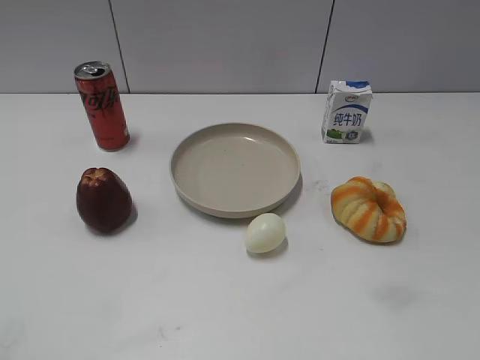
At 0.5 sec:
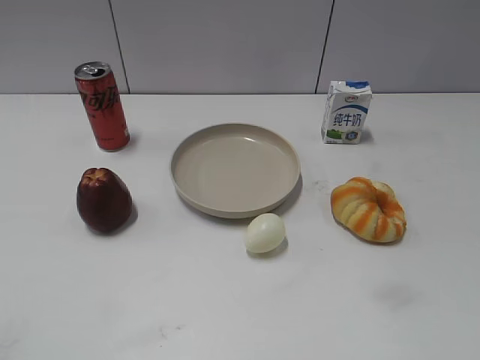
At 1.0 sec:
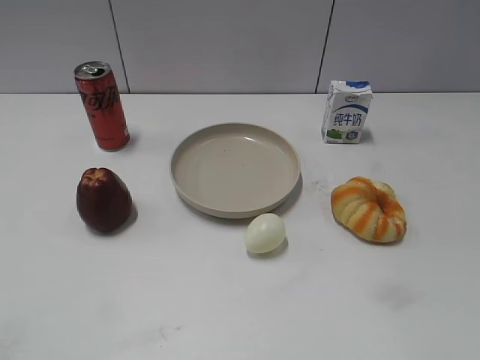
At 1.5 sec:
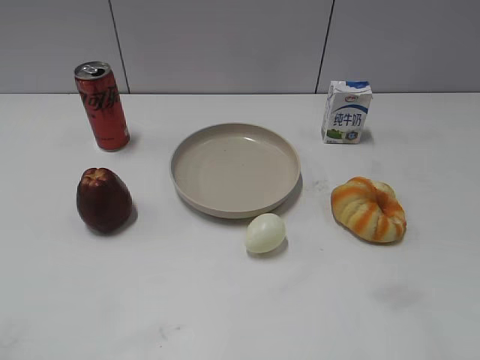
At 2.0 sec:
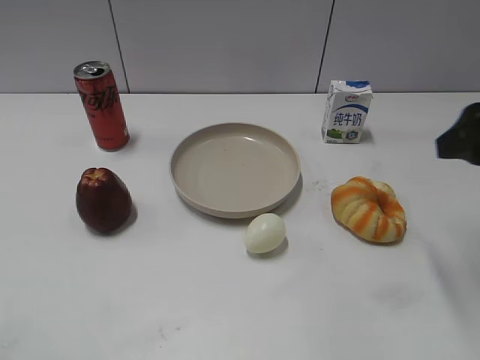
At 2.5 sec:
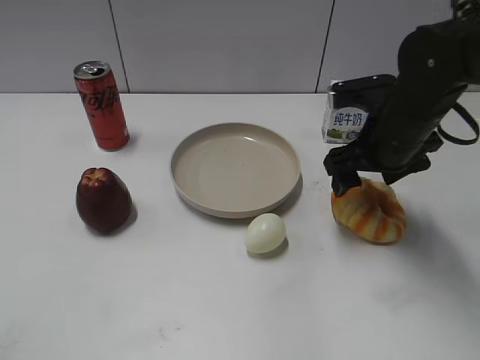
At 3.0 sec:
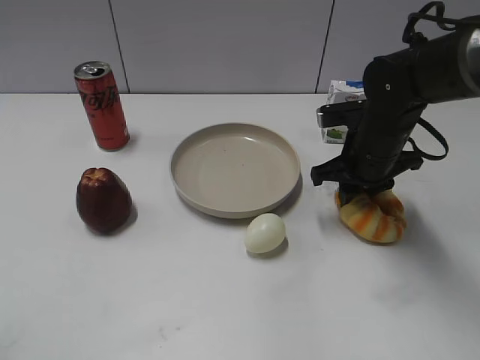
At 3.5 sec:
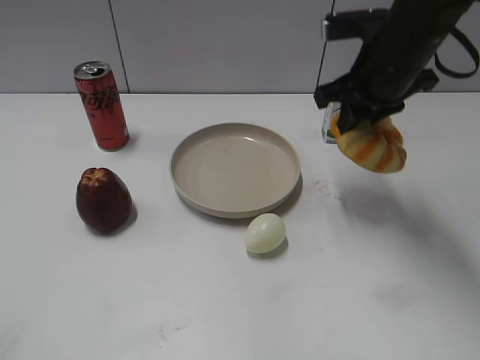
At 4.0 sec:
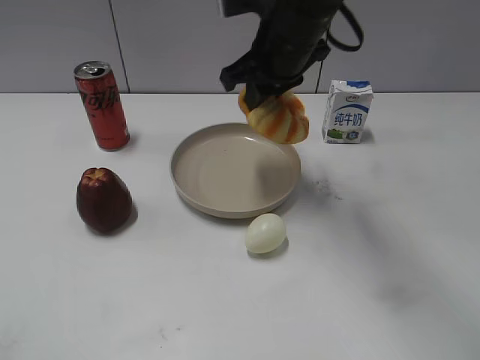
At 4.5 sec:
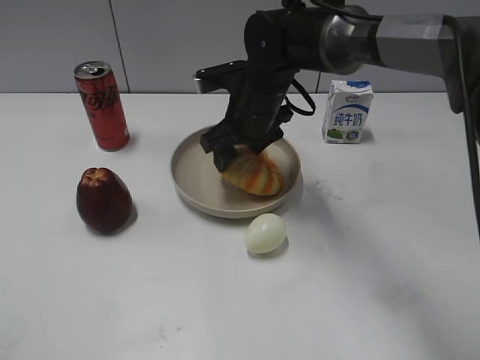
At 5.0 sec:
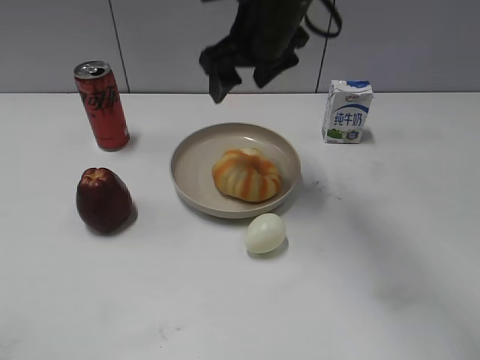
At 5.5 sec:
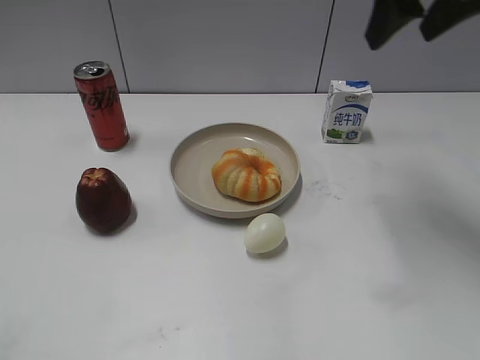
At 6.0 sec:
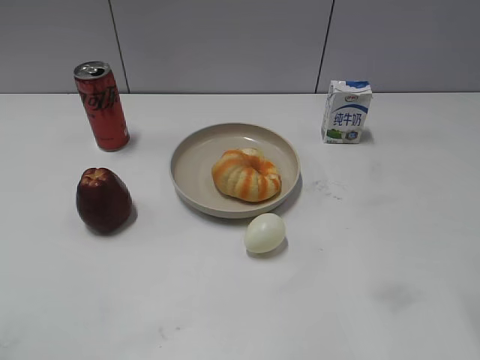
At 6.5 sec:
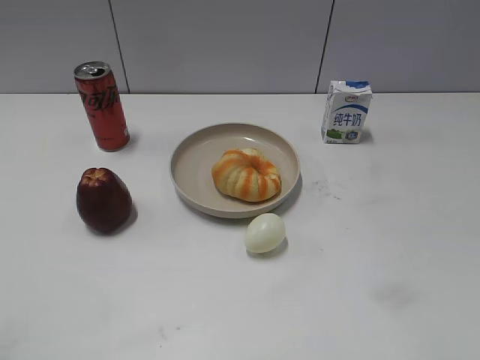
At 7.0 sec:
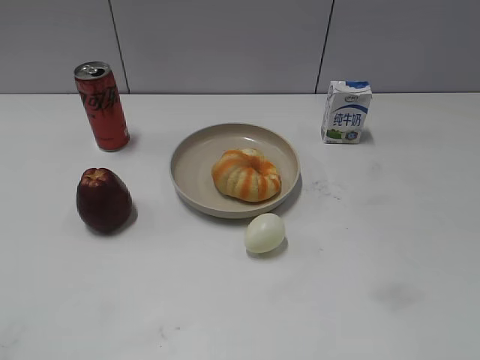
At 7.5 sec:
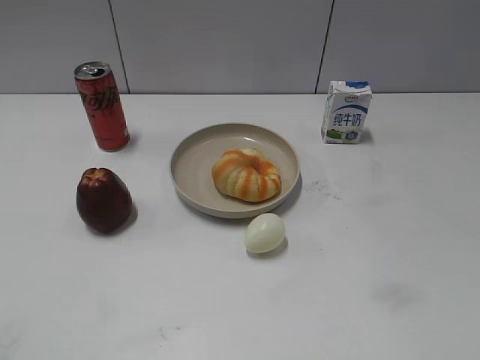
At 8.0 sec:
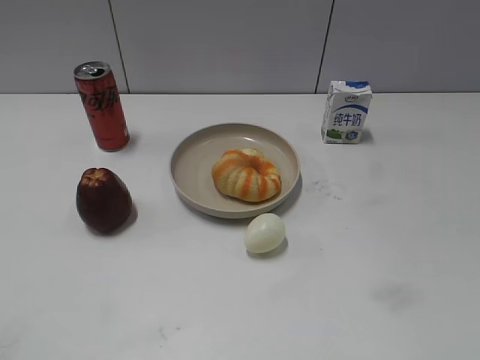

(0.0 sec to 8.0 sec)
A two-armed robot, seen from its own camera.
Step, 1.5 sec - 3.0 sec: Grasp the round bread with right gripper.
Step, 3.5 sec - 4.5 sec: Place the round bread on the plate with right gripper.
2.0 sec - 4.0 sec: The right gripper travels to the left and forward by some 25 cm, and closes its fingers.
4.0 sec - 6.0 sec: The right gripper is displaced to the right, backward and upward by about 25 cm, and opens.

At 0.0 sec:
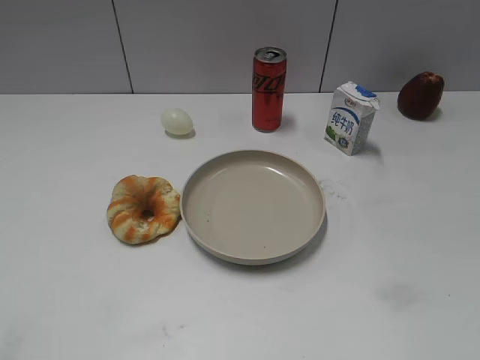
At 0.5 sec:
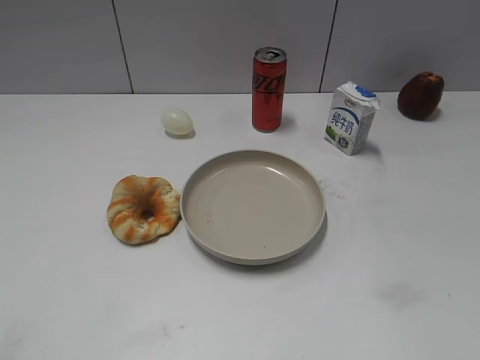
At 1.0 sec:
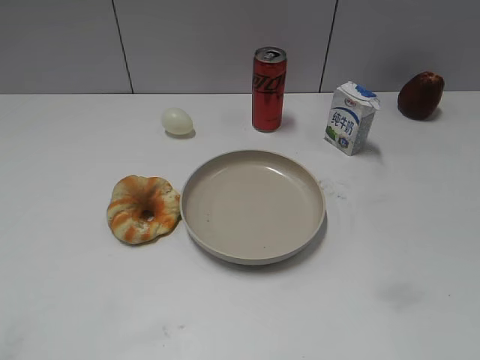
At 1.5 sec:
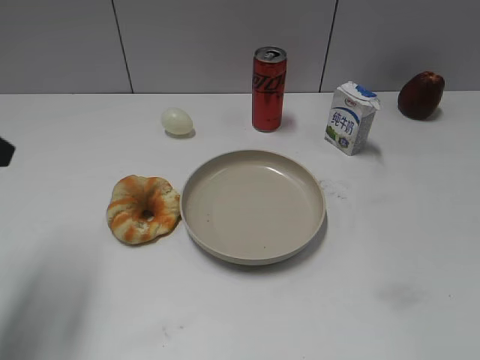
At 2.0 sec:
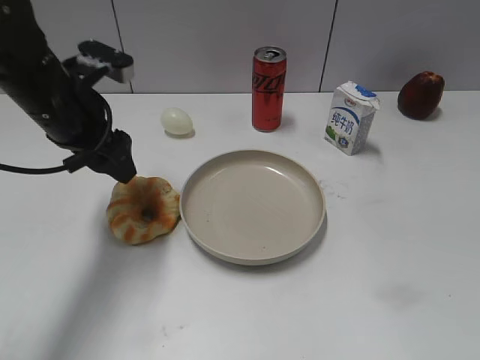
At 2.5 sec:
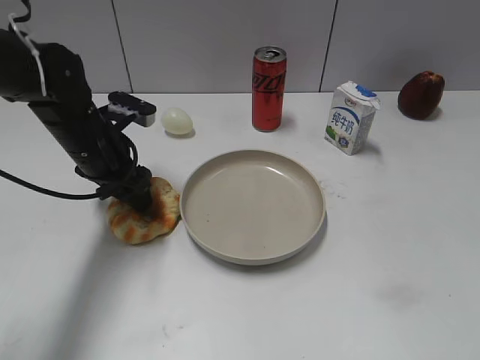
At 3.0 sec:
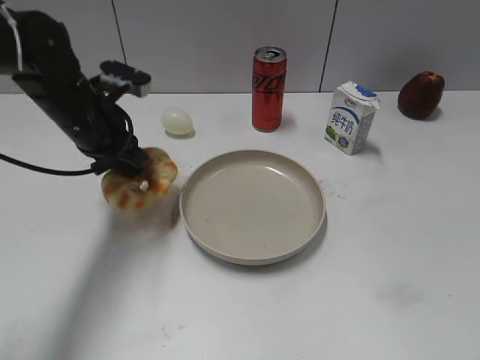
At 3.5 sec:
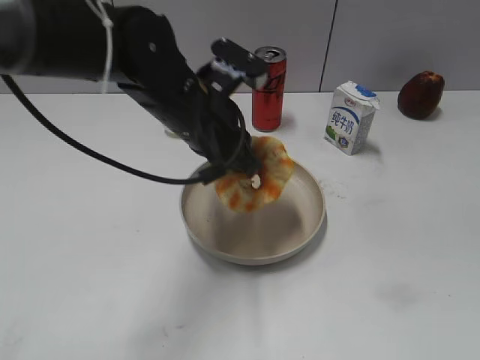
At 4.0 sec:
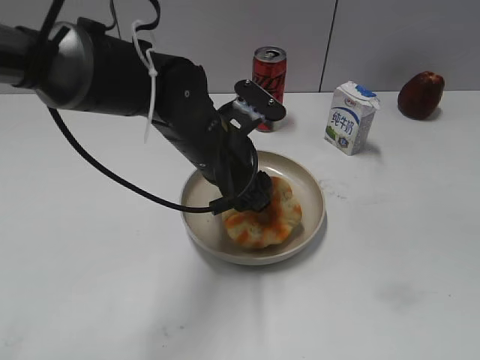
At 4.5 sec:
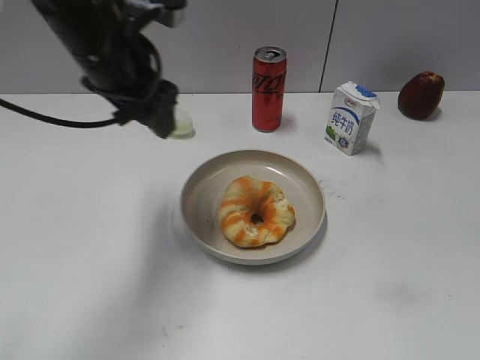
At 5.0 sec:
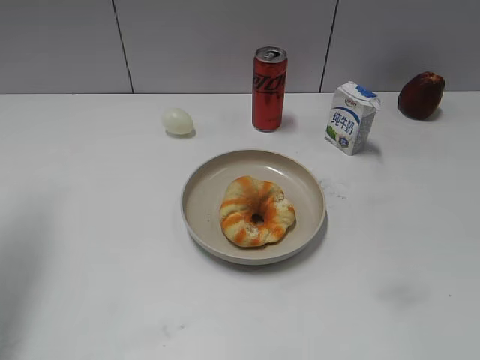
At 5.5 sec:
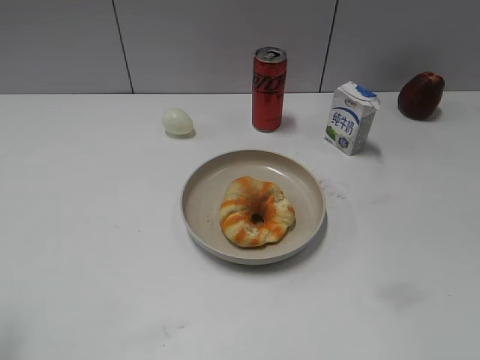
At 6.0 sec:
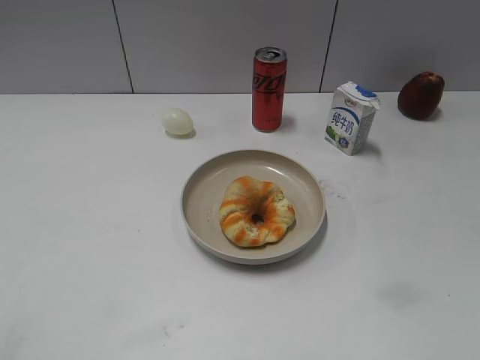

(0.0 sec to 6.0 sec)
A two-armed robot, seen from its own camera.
Step, 1.0 sec - 2.5 sec: Grasp the round bread with left gripper.
Step, 3.0 sec - 4.0 sec: Place the round bread on the plate with left gripper.
2.0 sec - 4.0 sec: The left gripper is displaced to the right by approximately 15 cm, and closes and opens again.
4.0 sec - 6.0 sec: The left gripper goes about 40 cm to the left, backward and upward.

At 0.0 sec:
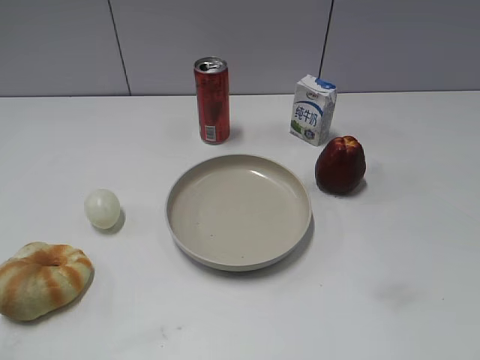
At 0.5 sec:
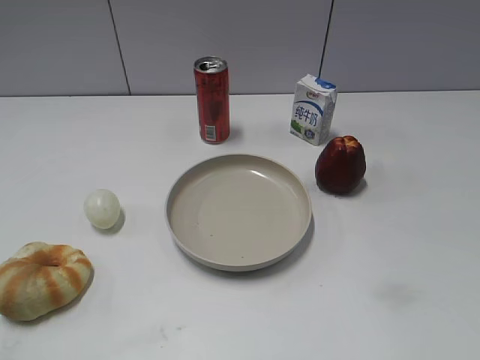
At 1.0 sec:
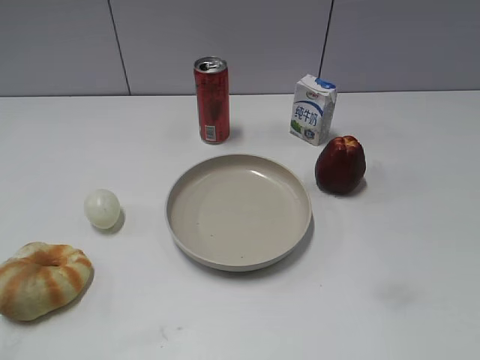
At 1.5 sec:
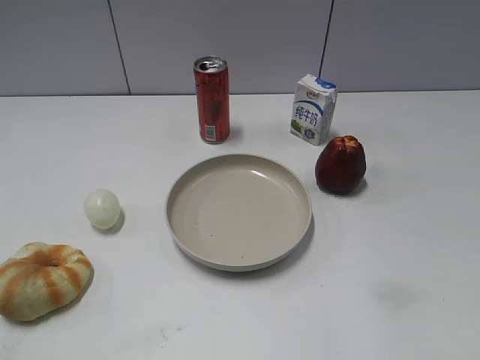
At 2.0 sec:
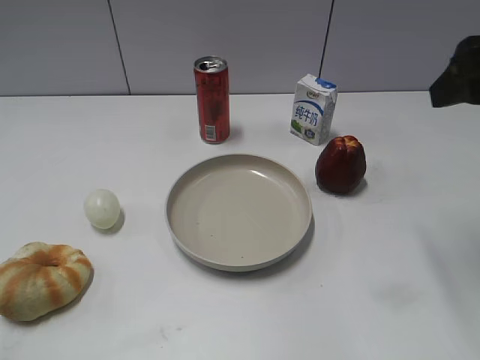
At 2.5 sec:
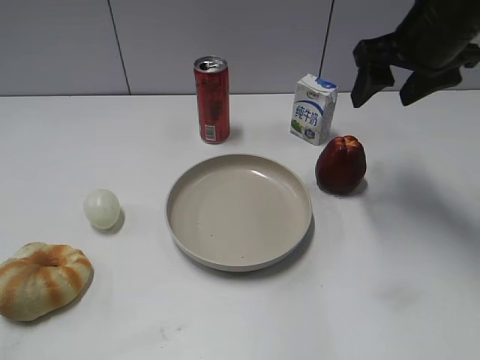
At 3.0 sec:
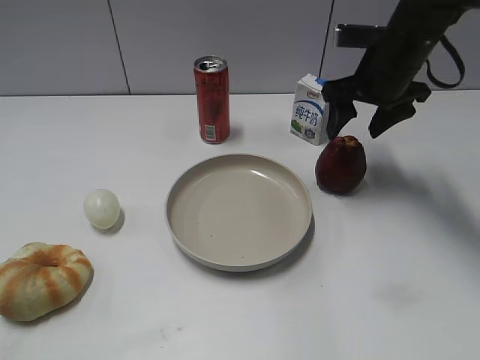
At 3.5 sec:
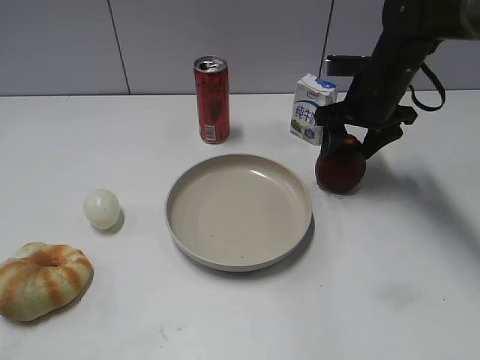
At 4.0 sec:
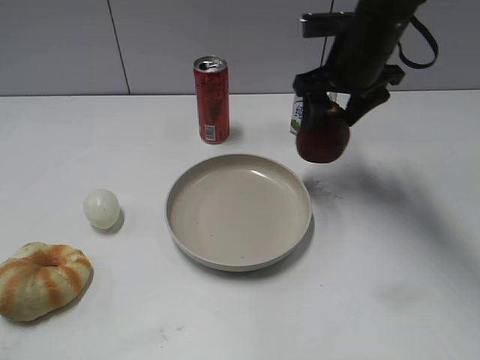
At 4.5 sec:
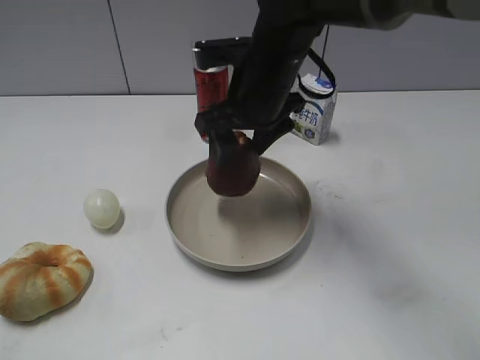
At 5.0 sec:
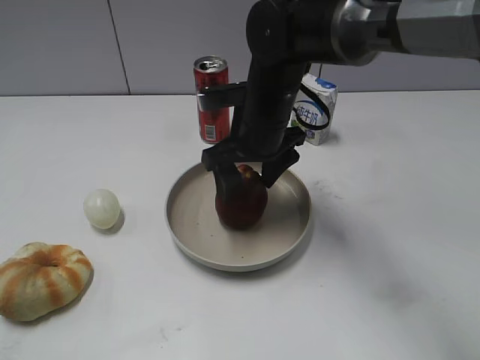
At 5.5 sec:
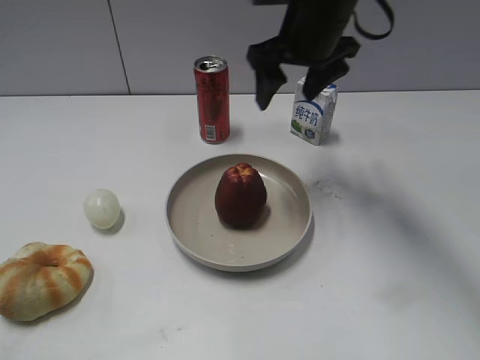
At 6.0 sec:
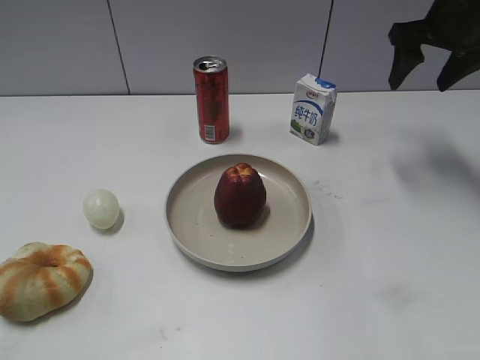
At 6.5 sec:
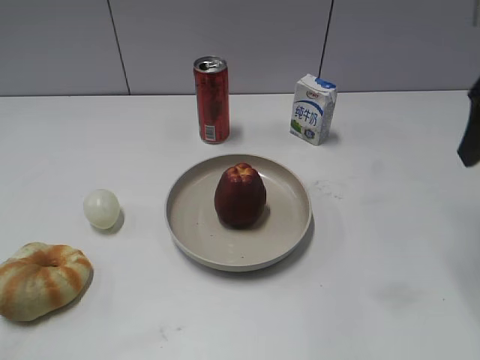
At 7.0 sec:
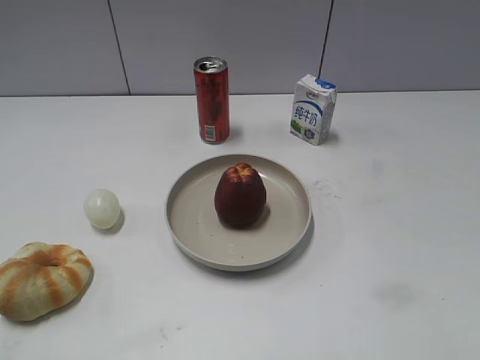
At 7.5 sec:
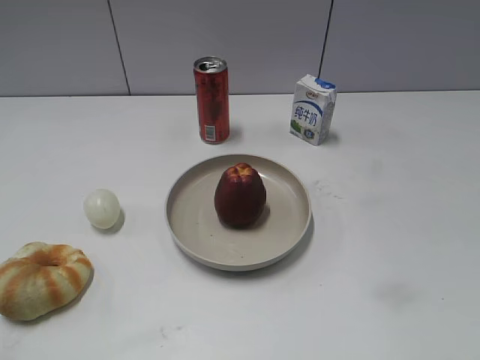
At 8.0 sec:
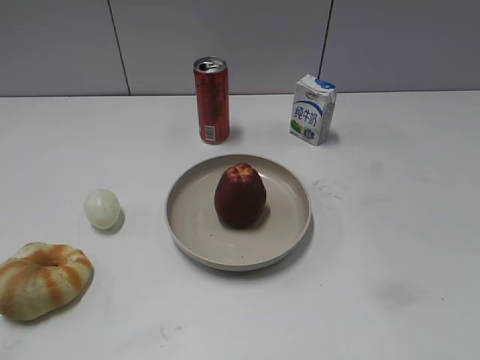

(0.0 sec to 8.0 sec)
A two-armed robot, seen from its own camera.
Step, 2.0 sec - 3.5 sec: Grasp the apple with right gripper.
Step, 4.0 sec - 5.0 sec: Place the apple on the plate with right gripper.
2.0 sec - 4.0 sec: The right gripper heads forward, to the left and downward, covering roughly 20 cm.
4.0 sec - 6.0 sec: The right gripper travels to the right by some 15 cm.
6.0 sec - 8.0 sec: The right gripper heads backward, covering some 40 cm.
